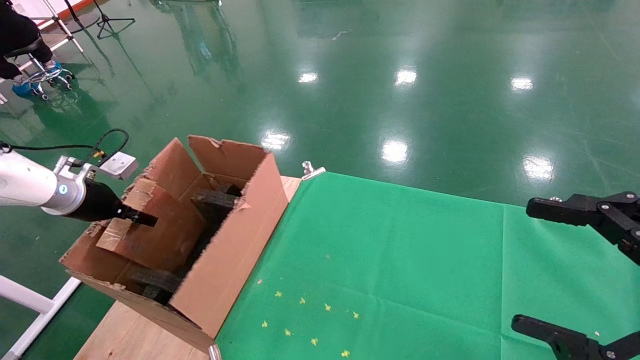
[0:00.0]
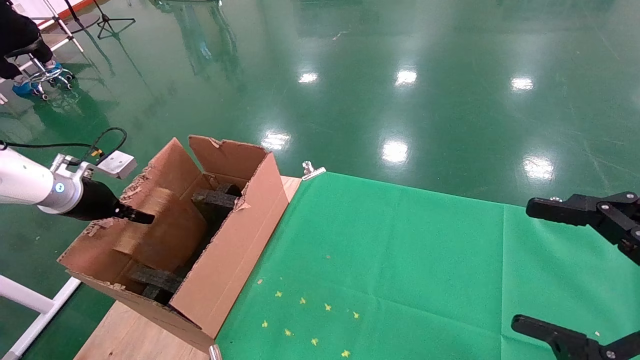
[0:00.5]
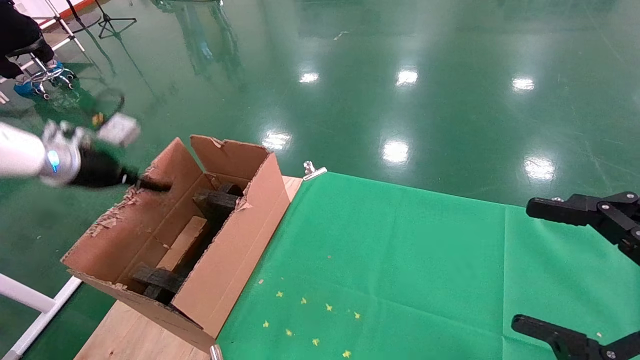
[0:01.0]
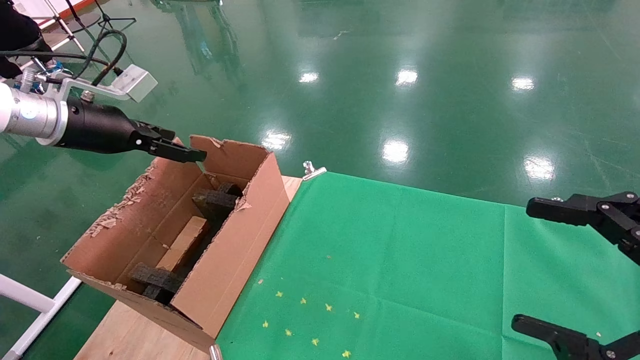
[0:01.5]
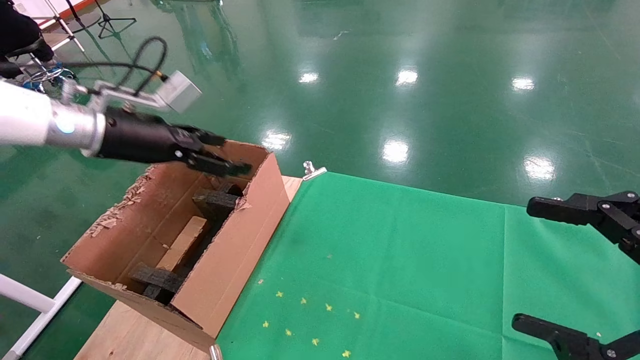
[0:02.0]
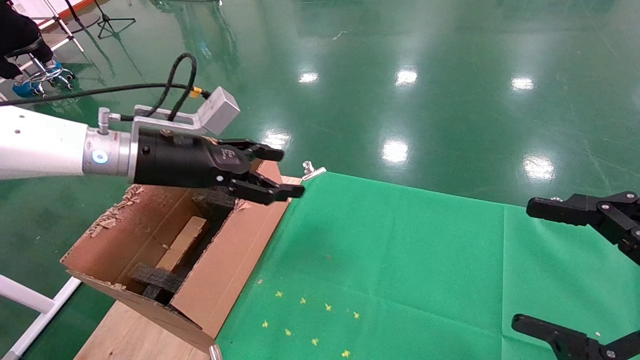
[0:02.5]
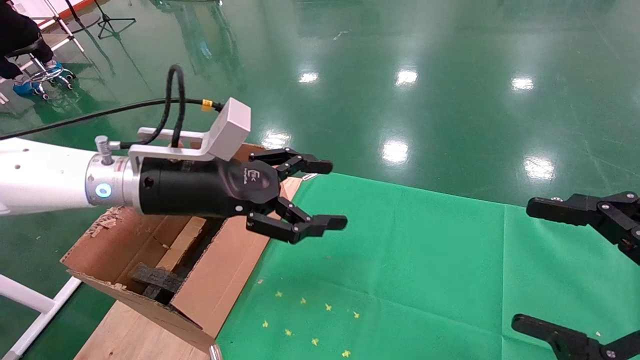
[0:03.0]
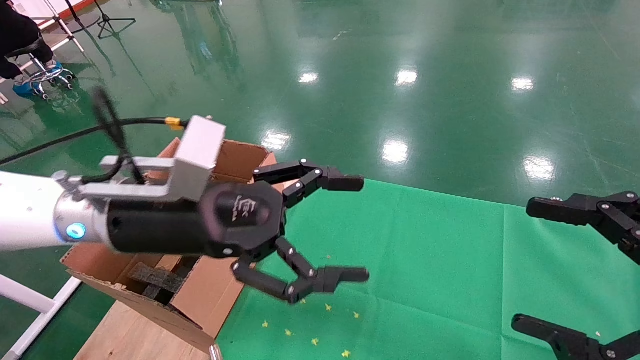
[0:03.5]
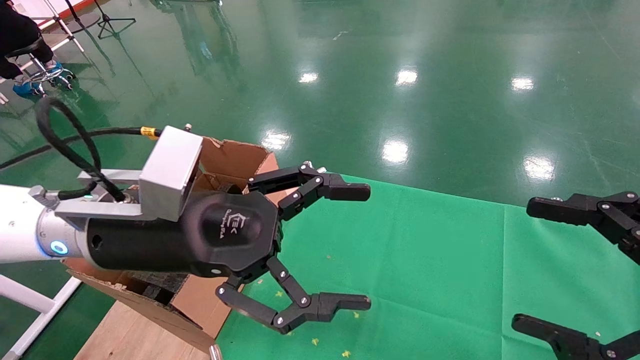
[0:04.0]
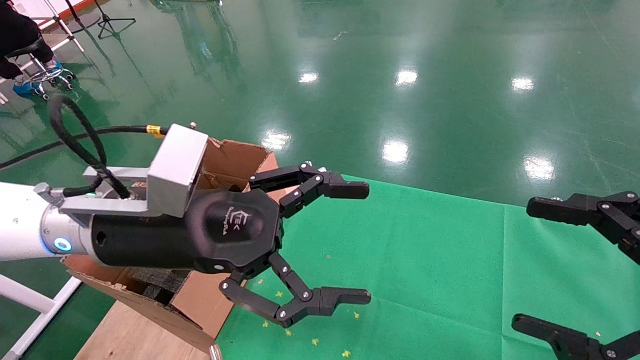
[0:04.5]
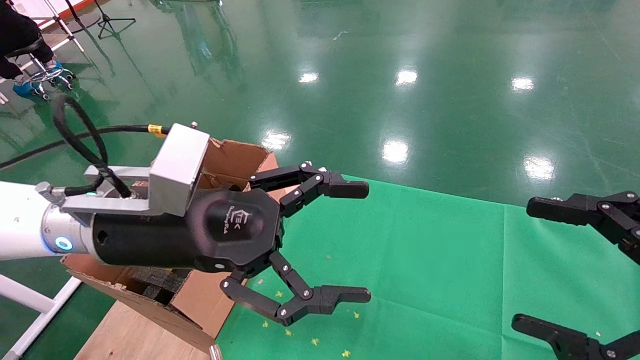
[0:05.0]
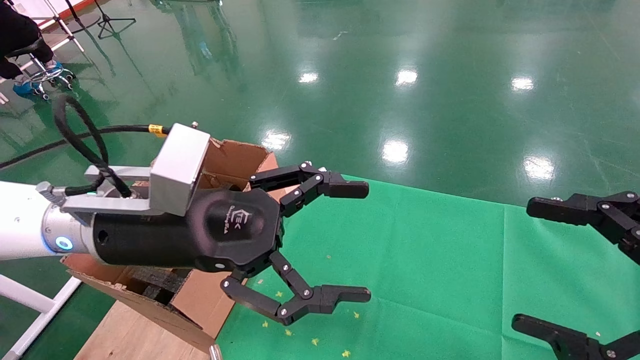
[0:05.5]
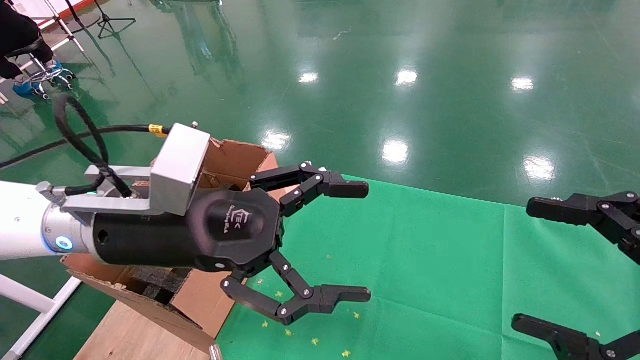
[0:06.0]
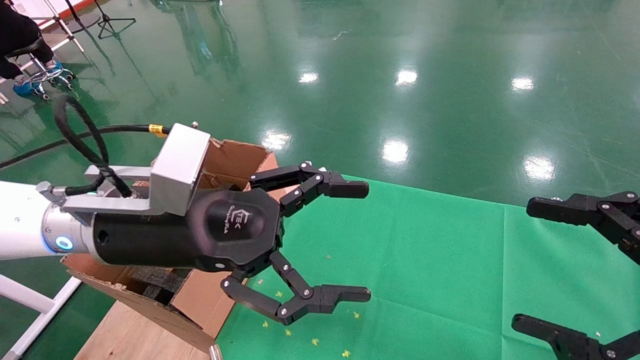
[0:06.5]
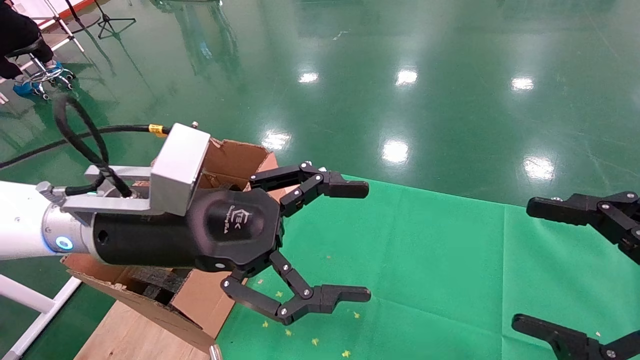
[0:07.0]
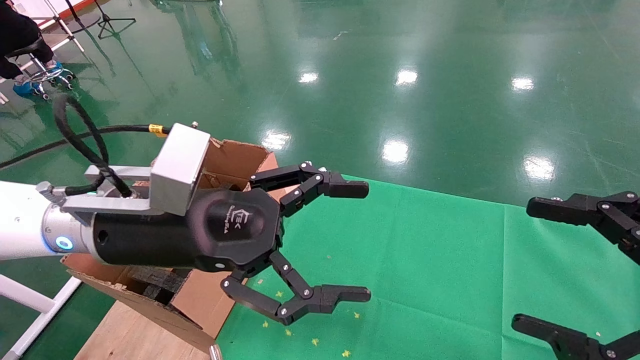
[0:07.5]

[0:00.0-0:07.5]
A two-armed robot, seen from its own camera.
Task of the whole recording: using a robotic arm to pick up a cardboard box and palace it the carton.
0:00.0 to 0:02.0: The left gripper goes some 20 cm to the right and upward, and opens.
0:02.0 to 0:04.0: The left gripper heads to the right and backward, covering some 20 cm.
0:04.0 to 0:07.5: The two grippers keep their place.
